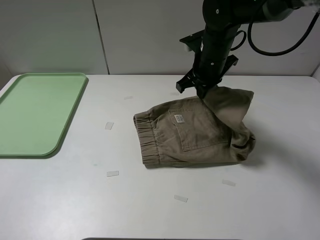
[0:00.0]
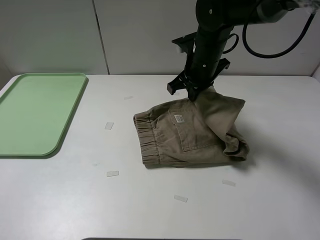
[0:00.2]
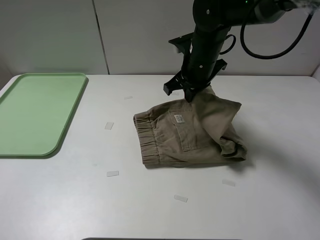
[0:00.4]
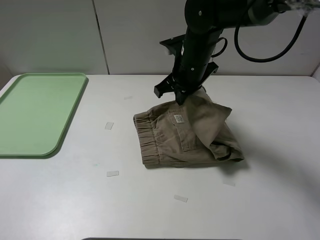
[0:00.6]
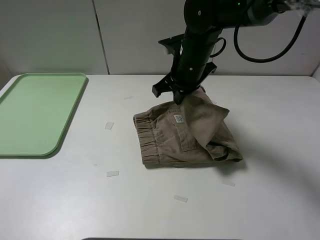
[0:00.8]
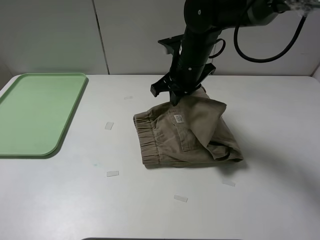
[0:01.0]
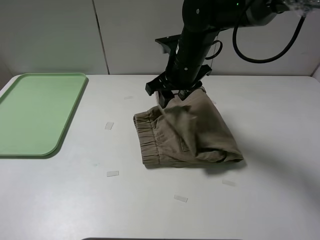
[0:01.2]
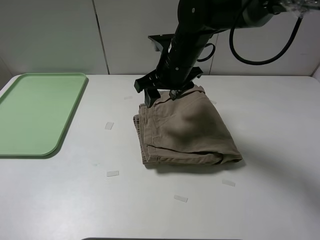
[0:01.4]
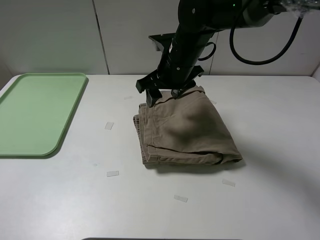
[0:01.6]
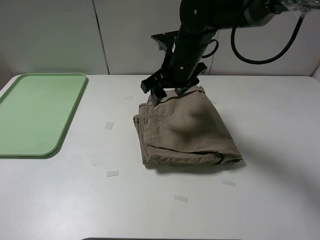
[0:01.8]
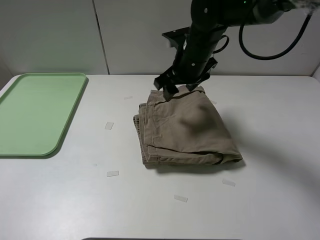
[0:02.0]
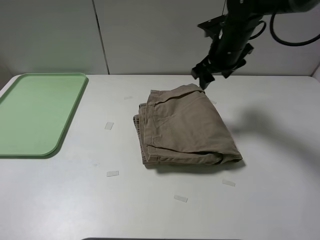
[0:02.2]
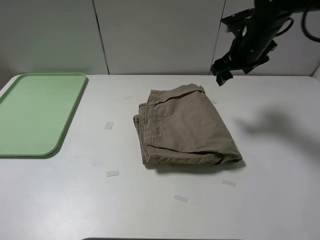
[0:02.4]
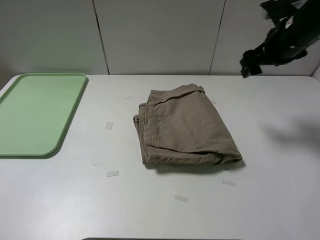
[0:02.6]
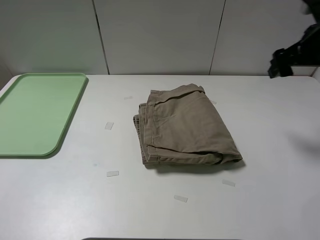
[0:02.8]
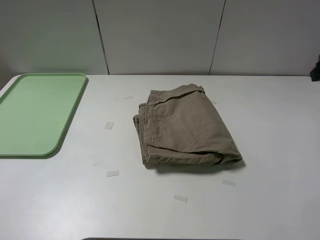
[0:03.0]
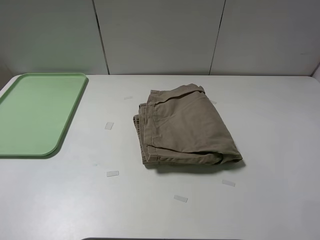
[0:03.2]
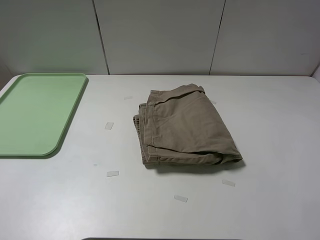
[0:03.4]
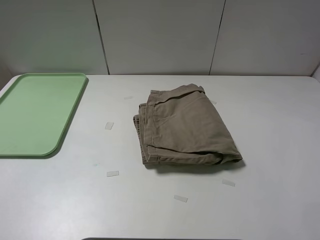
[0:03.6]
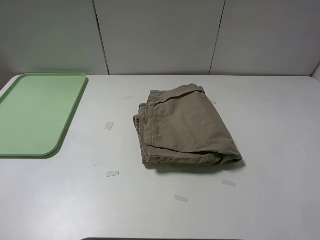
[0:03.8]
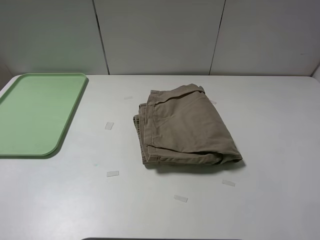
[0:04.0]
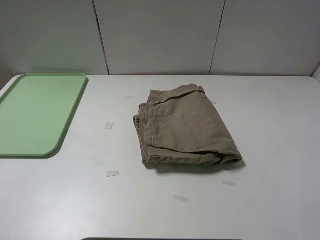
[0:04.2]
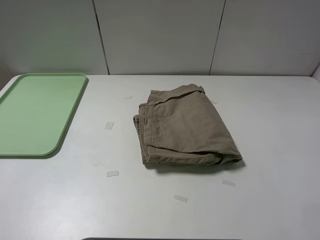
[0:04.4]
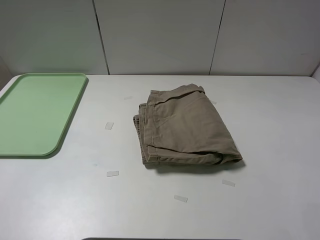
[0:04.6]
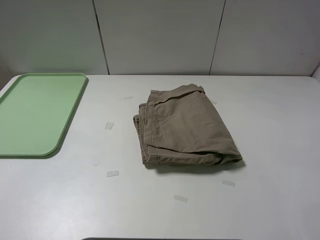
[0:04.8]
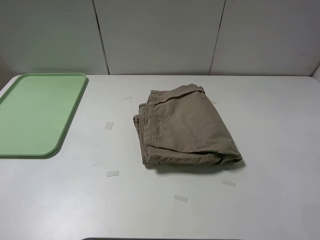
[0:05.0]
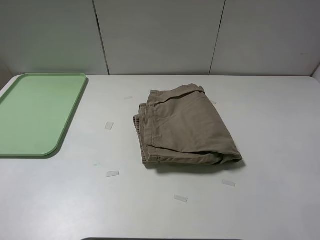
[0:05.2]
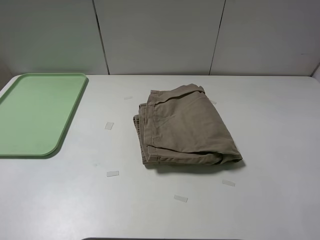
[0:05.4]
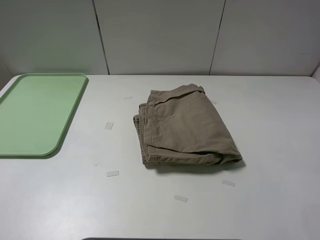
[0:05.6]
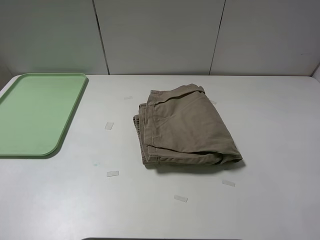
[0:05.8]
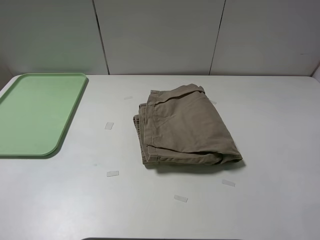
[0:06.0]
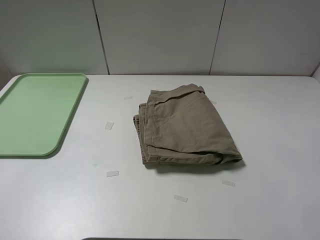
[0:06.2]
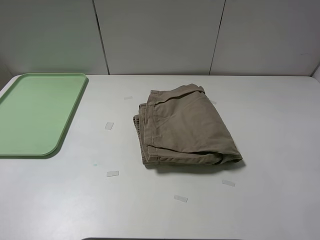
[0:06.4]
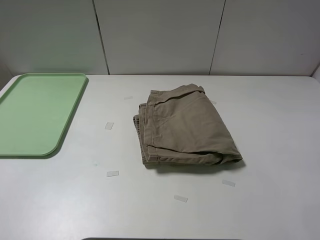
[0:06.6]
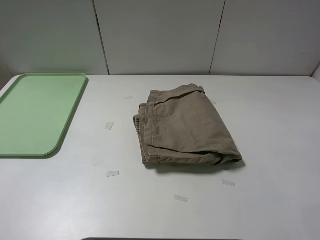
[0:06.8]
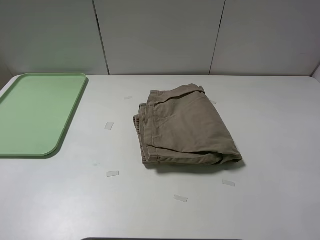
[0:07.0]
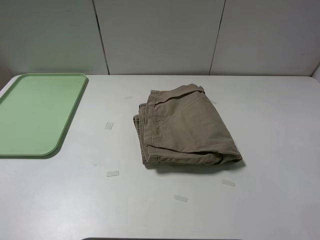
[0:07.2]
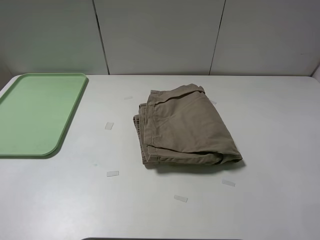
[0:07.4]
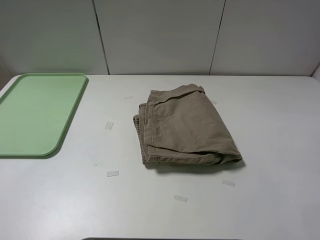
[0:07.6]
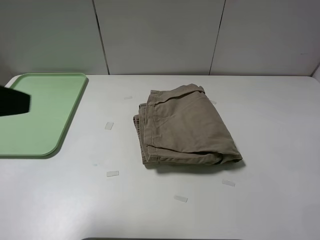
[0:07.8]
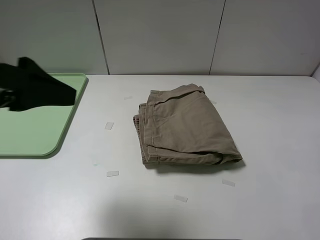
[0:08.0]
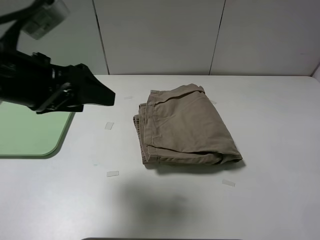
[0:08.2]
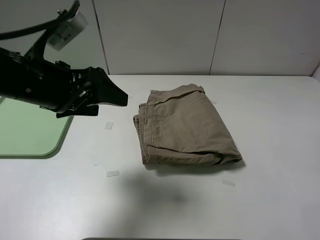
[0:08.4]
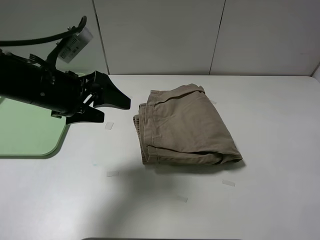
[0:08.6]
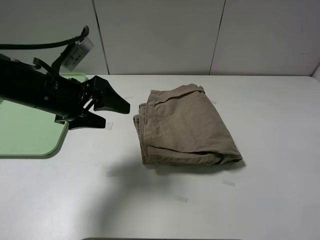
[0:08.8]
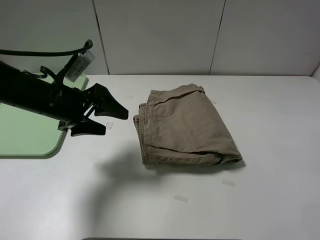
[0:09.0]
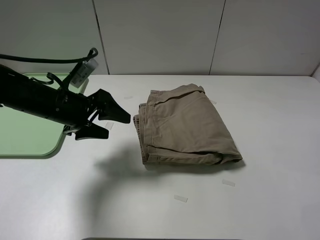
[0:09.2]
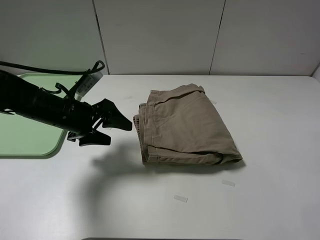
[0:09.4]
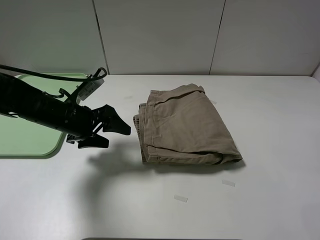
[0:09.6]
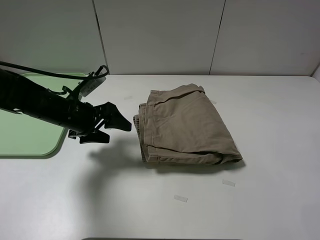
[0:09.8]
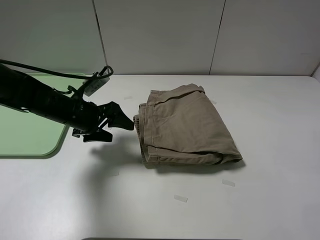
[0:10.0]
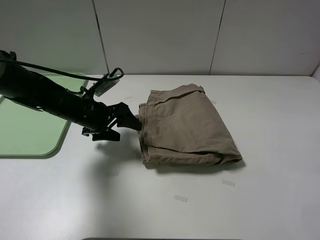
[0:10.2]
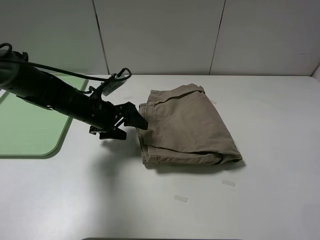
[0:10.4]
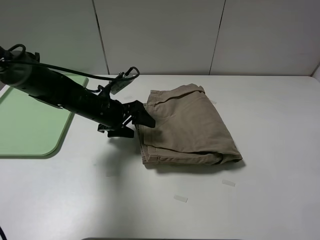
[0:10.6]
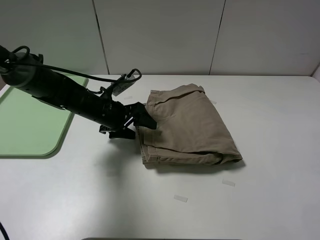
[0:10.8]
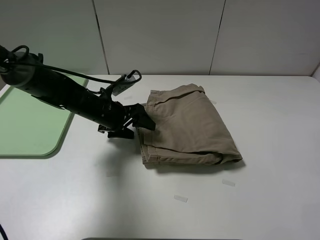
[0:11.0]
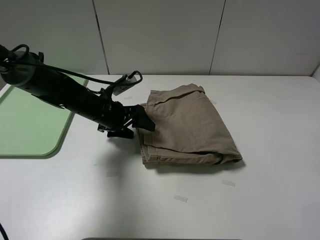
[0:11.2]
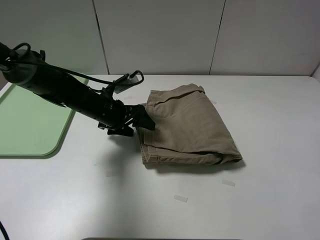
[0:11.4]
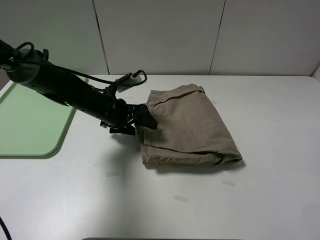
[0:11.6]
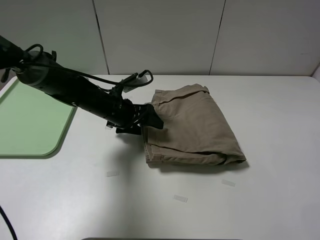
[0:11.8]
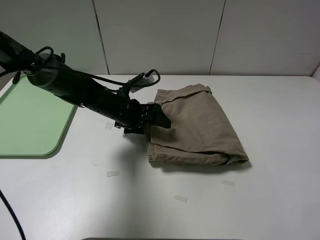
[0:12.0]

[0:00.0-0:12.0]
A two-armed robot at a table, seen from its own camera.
Task of the whole recording: fold the khaki jeans in half with two grippers, then fold them in half again, and use the left claw to place the folded fold khaki jeans on the tray.
0:00.0 to 0:01.6: The right gripper heads to the left, covering about 5 cm, and opens up.
0:01.6 to 0:03.0: The right gripper shifts roughly 30 cm to the right.
0:07.6 to 0:09.0: The left gripper is displaced forward, downward and to the right by about 25 cm.
0:09.0 to 0:10.4: The left gripper is displaced downward and forward by roughly 10 cm.
0:10.4 to 0:12.0: The left gripper moves to the right, about 5 cm.

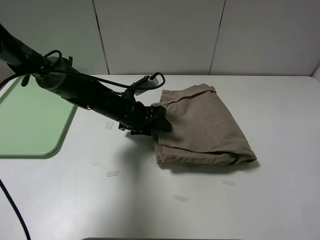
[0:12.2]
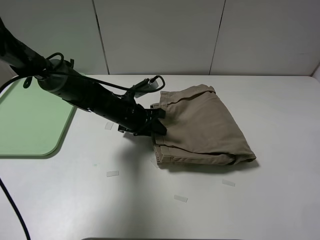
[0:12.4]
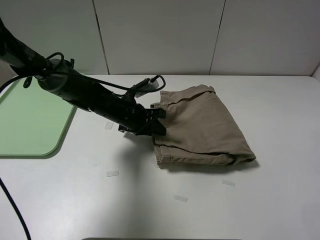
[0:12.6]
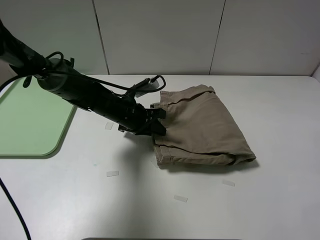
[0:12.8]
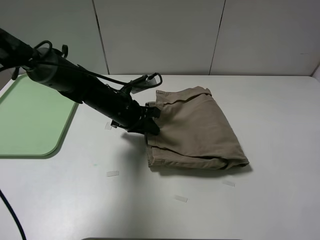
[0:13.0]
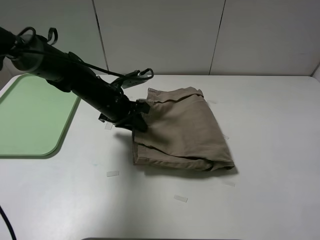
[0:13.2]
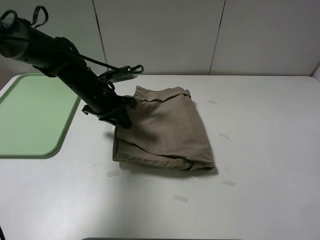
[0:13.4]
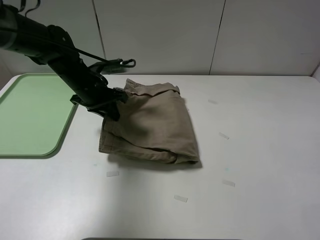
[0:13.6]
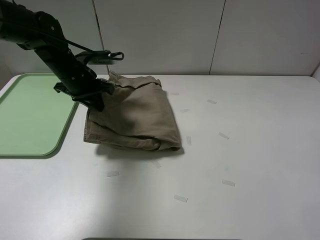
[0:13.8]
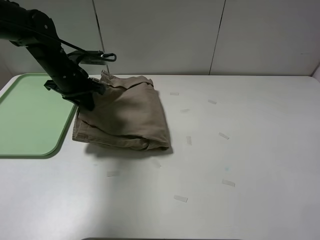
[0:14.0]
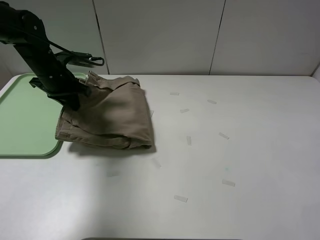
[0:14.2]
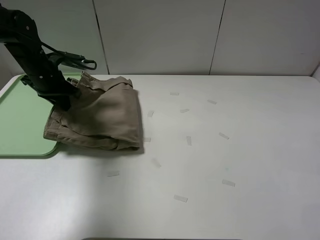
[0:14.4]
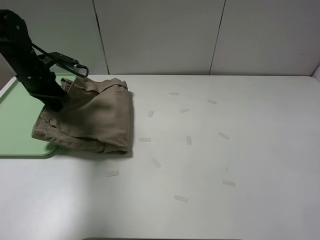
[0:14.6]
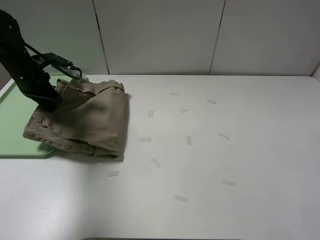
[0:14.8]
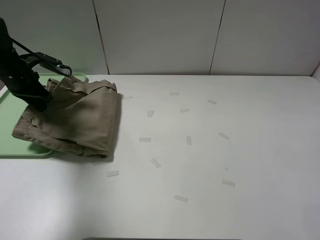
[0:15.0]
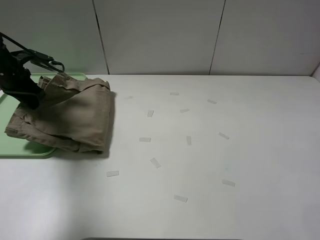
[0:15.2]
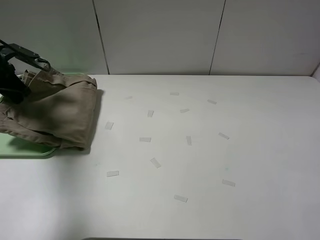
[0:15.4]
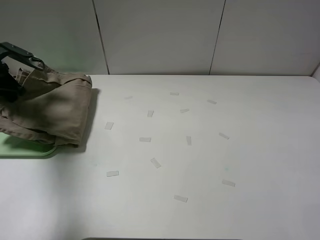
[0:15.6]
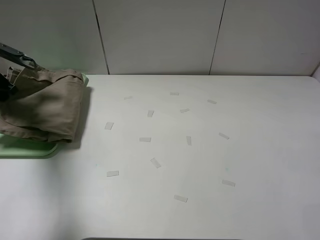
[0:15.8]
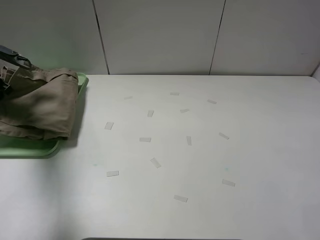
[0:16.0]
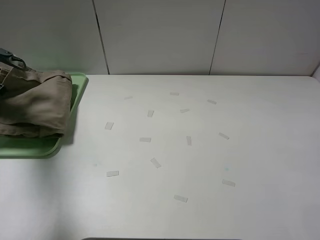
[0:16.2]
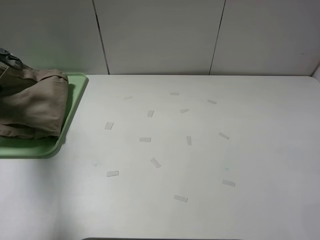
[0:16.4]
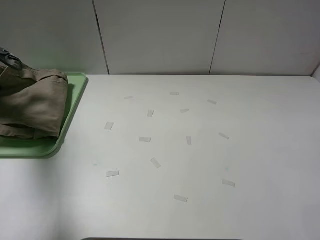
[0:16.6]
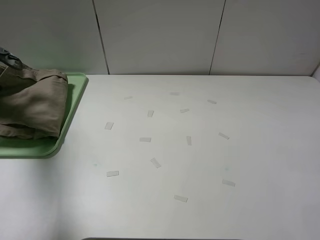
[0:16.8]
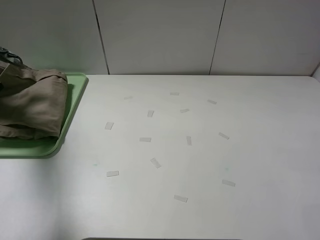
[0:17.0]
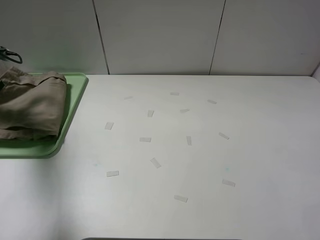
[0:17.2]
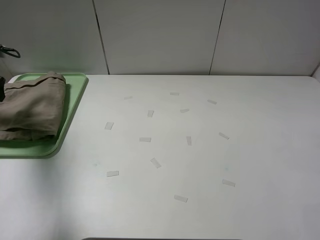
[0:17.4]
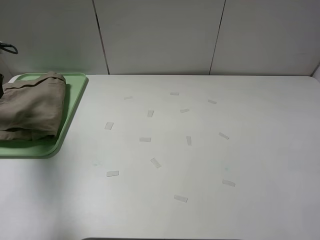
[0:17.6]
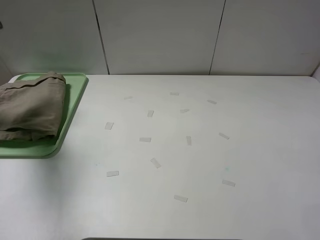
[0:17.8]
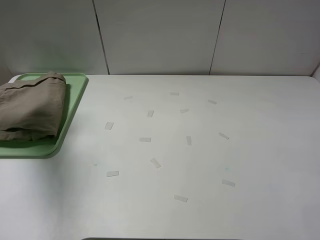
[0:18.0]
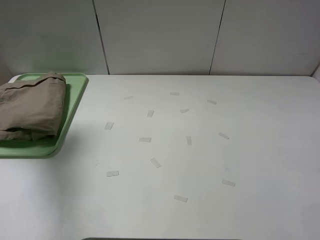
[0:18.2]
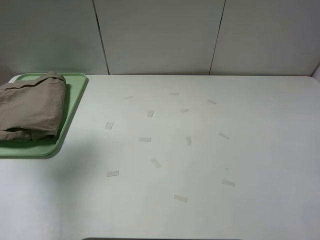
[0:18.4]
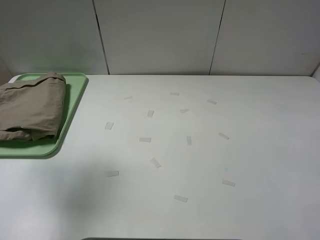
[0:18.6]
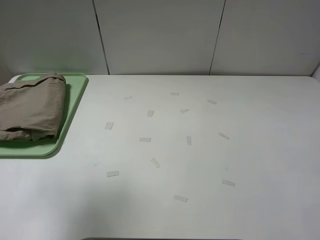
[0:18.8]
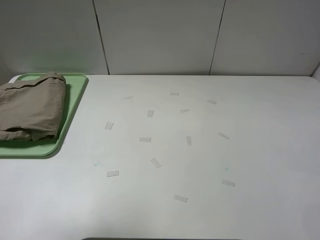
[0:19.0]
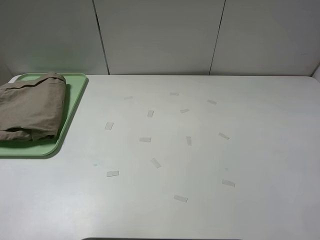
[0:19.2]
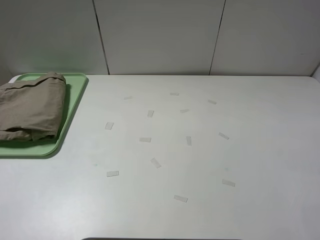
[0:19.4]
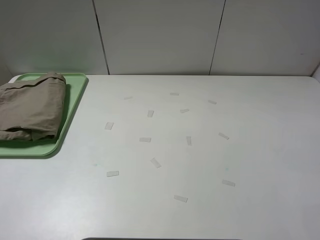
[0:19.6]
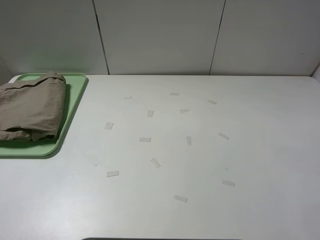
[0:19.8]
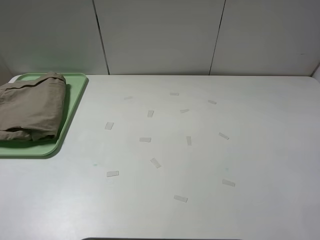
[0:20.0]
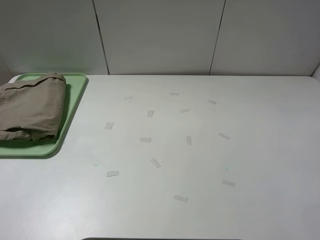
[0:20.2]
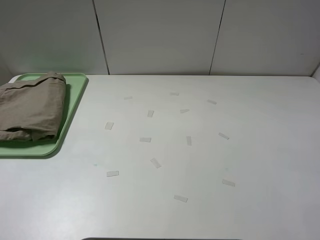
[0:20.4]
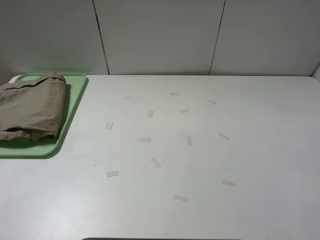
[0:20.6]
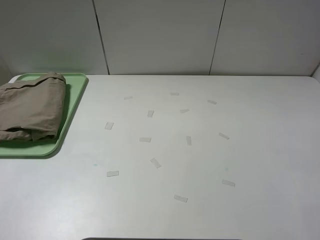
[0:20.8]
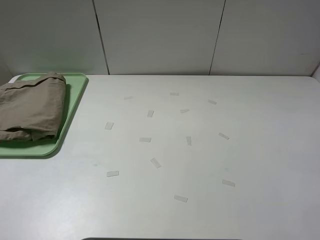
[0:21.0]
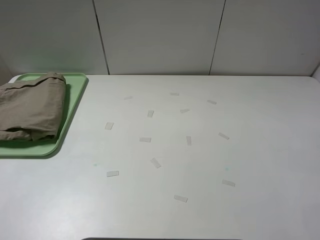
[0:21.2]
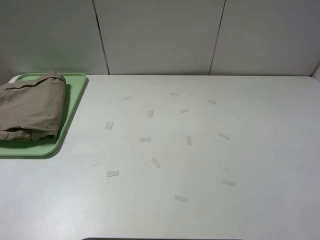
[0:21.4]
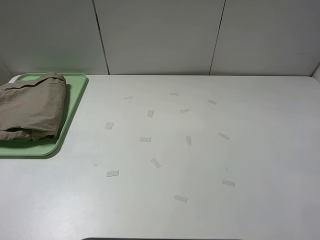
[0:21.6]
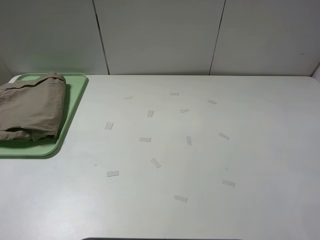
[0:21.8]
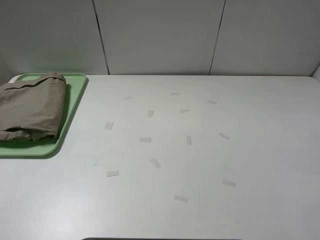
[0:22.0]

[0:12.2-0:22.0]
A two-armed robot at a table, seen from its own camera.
Task of the whole recording: fold the khaki jeans in half with two grippers, then fold them in half again, and use the left claw to place the folded fold khaki jeans on the tray.
Step, 0:12.8 to 0:17.4: Place the folded khaki trousers on the green tray with the left gripper.
0:12.2 to 0:13.6: The left gripper shifts approximately 10 cm upward and to the left.
0:13.6 to 0:15.0: The left gripper shifts approximately 15 cm to the left.
0:15.0 to 0:16.4: The left gripper shifts some 10 cm to the left.
0:16.4 to 0:17.8: The left gripper moves upward, some 10 cm, and opens up.
0:17.8 to 0:19.2: The left gripper moves backward and to the right, approximately 35 cm.
0:20.6 to 0:22.0: Both grippers stay about where they are.
